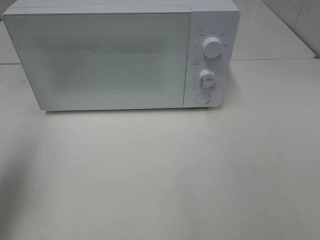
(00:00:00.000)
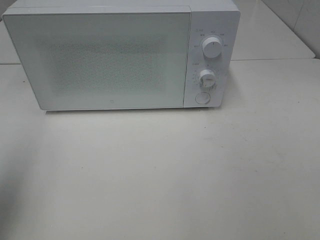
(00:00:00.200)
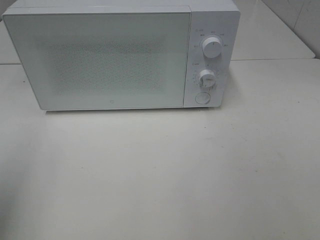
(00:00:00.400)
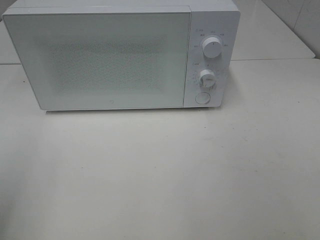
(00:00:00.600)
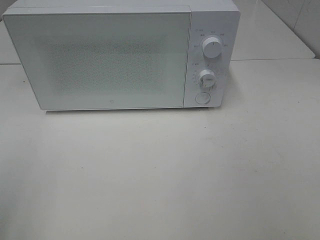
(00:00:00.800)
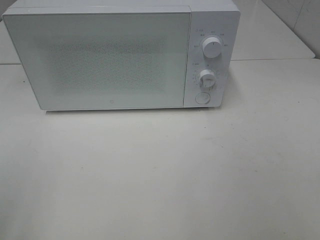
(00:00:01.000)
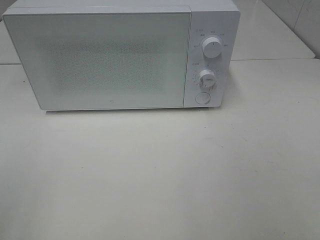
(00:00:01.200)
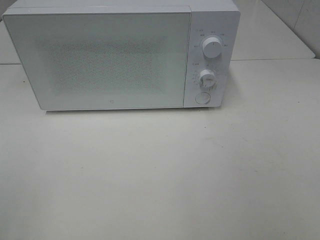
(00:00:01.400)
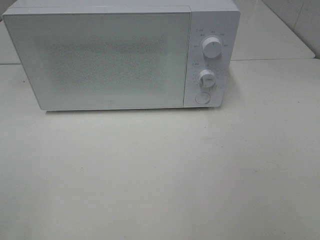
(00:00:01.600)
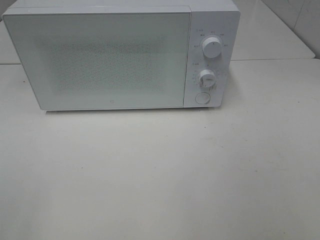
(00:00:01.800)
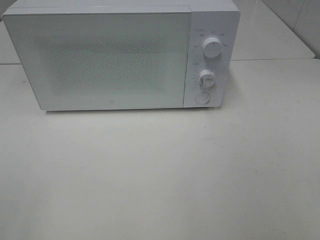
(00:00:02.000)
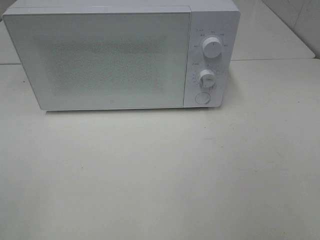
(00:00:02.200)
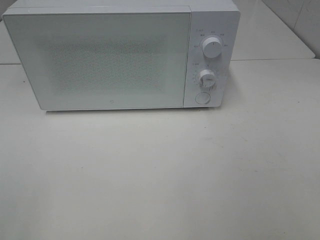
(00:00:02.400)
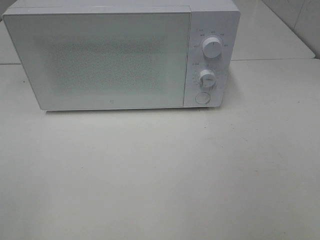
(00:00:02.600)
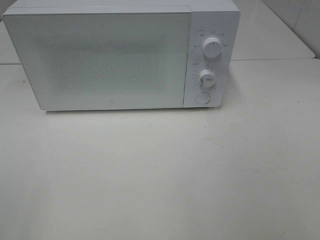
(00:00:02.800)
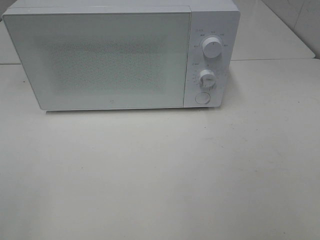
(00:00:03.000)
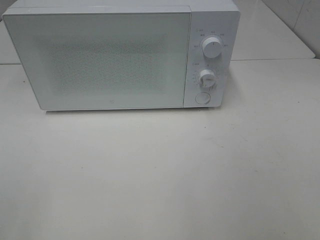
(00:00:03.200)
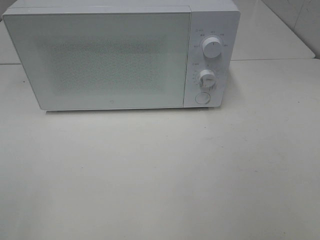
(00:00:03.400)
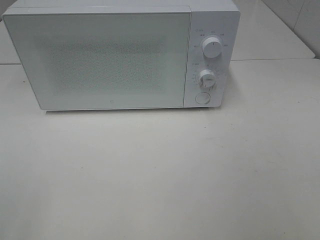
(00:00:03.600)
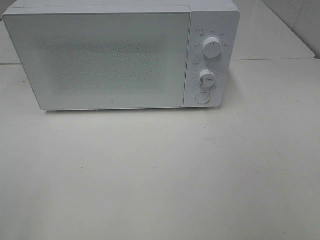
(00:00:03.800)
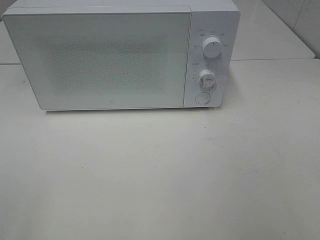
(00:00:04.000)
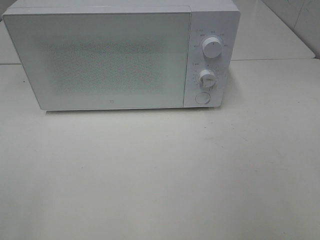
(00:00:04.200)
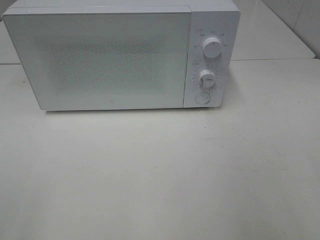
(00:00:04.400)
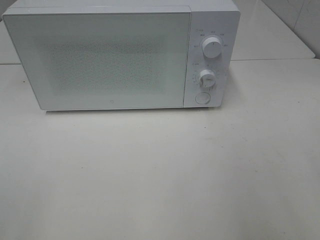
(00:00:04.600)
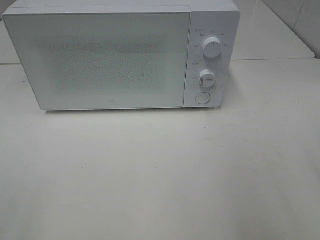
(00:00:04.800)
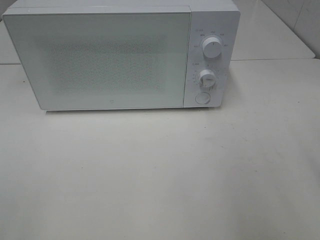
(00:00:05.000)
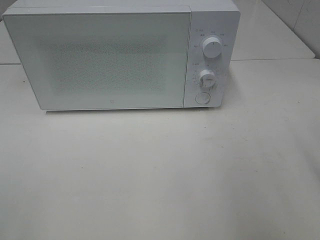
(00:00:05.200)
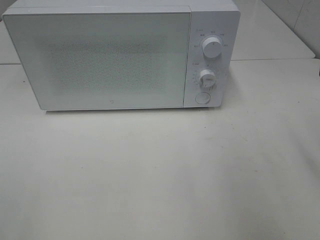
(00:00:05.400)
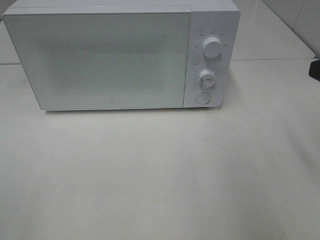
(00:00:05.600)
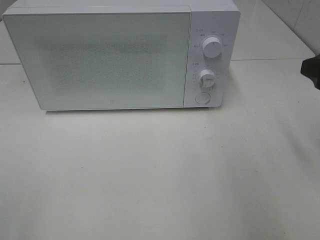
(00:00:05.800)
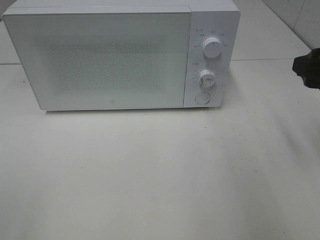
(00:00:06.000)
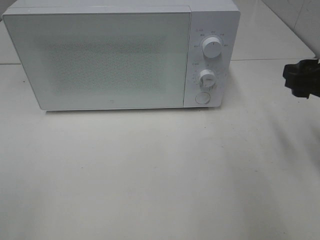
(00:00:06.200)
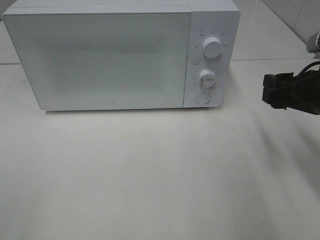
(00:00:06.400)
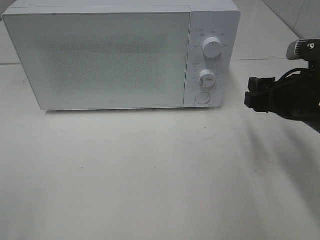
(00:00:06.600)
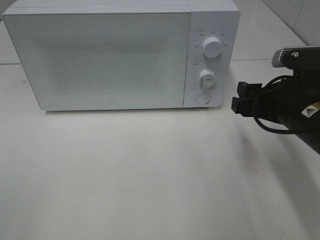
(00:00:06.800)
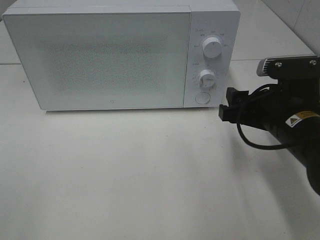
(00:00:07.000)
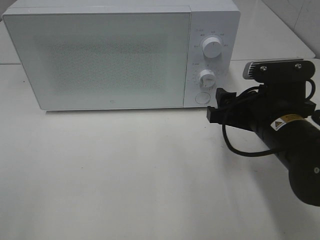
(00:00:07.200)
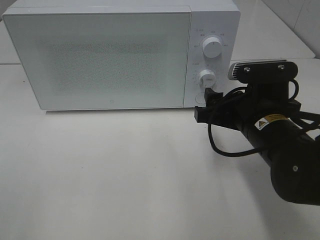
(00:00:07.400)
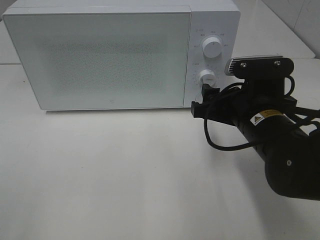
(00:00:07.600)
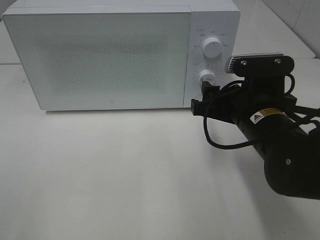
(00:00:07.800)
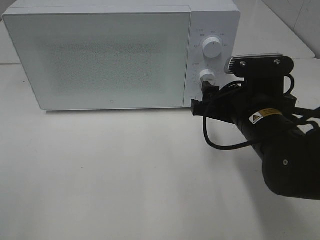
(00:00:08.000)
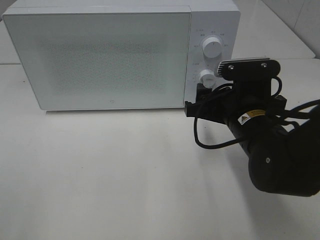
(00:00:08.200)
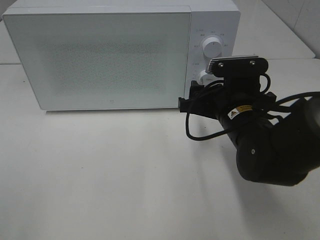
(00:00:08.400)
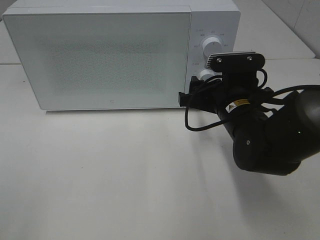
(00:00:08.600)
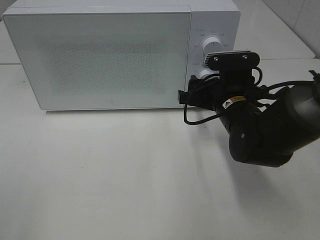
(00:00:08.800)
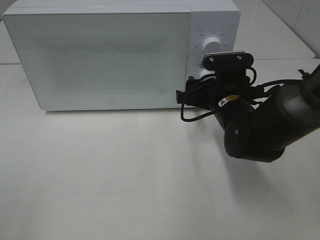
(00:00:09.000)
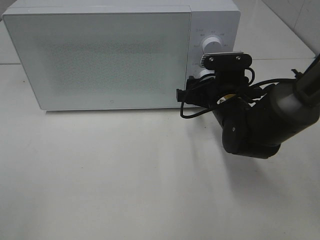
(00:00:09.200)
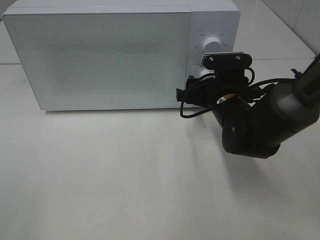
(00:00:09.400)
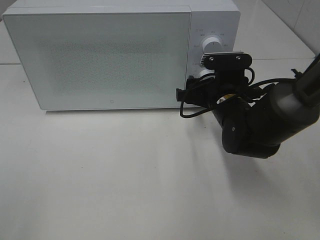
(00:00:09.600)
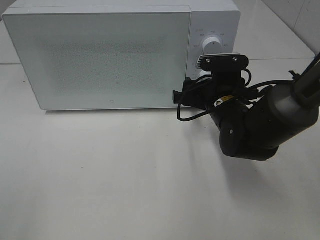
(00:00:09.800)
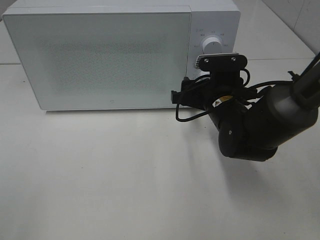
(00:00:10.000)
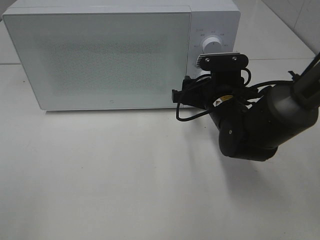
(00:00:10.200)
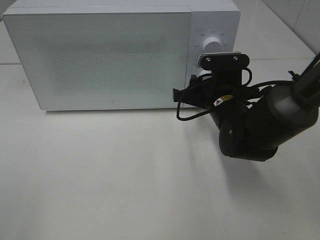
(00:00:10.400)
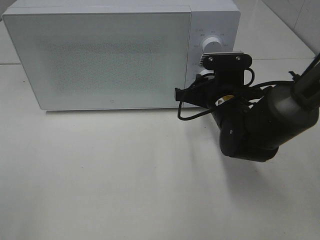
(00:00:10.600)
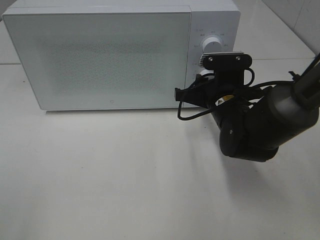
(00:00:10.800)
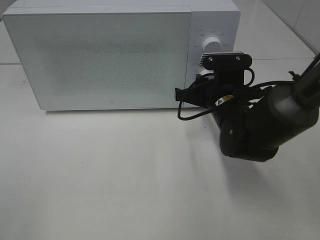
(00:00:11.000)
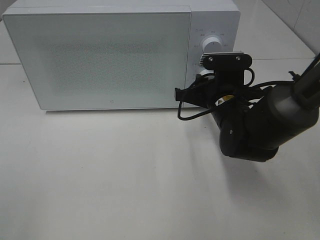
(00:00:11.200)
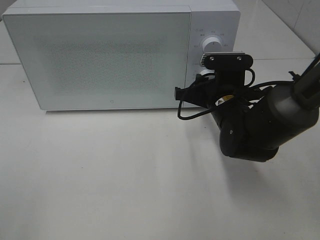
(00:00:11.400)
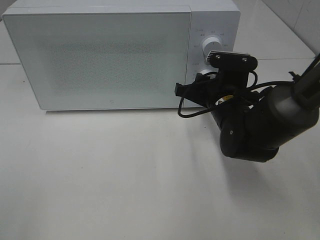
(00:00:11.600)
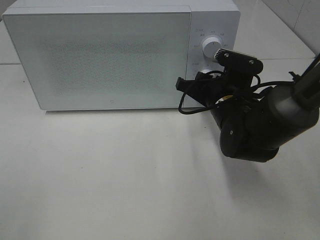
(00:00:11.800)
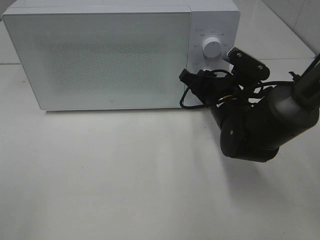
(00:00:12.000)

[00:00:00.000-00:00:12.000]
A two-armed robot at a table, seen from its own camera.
Task of the whole recording: Heat Sandwich.
00:00:00.000 to 00:00:01.600: The left gripper travels backward by approximately 20 cm.
00:00:01.600 to 00:00:03.000: Neither gripper changes place.
00:00:04.400 to 00:00:06.000: The right gripper moves forward, roughly 15 cm.
00:00:06.000 to 00:00:07.600: The right gripper travels to the left and downward by about 15 cm.
00:00:07.600 to 00:00:09.000: The right gripper heads forward, covering roughly 10 cm.
00:00:09.000 to 00:00:10.400: The two grippers keep their place.

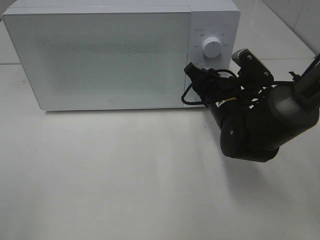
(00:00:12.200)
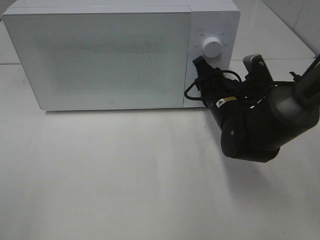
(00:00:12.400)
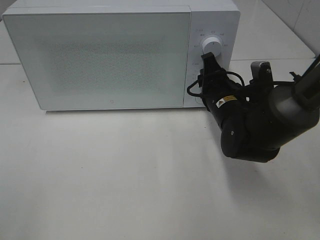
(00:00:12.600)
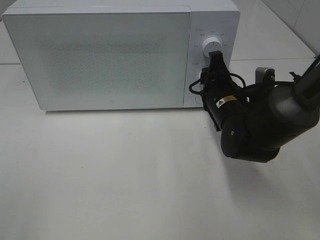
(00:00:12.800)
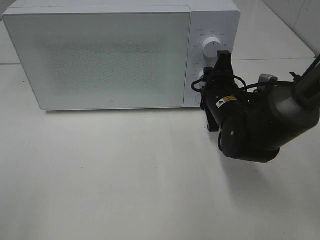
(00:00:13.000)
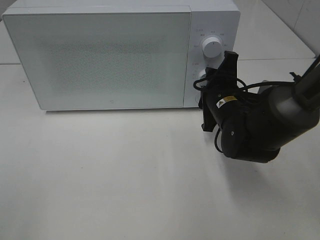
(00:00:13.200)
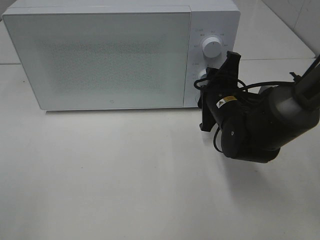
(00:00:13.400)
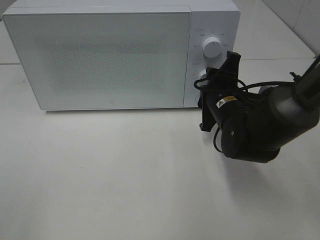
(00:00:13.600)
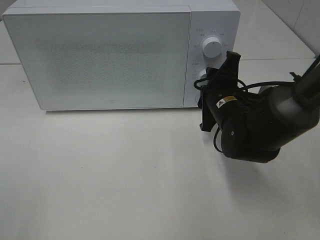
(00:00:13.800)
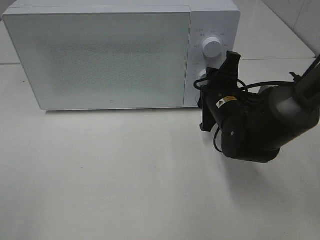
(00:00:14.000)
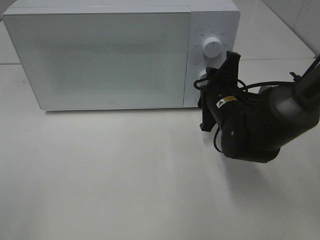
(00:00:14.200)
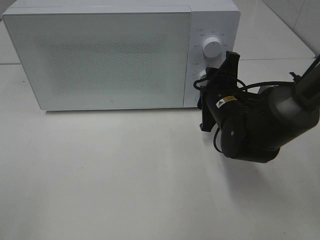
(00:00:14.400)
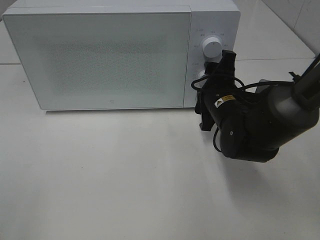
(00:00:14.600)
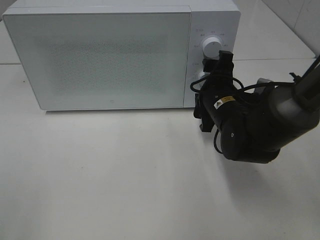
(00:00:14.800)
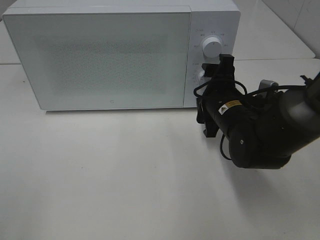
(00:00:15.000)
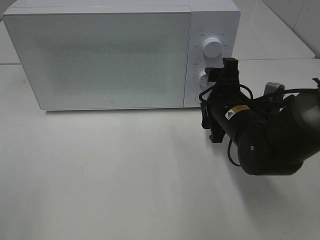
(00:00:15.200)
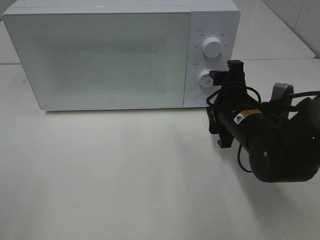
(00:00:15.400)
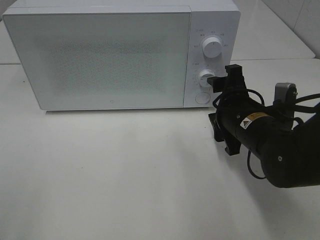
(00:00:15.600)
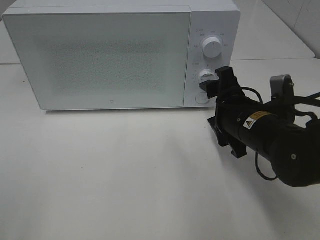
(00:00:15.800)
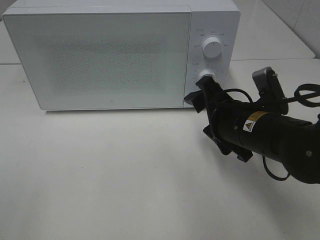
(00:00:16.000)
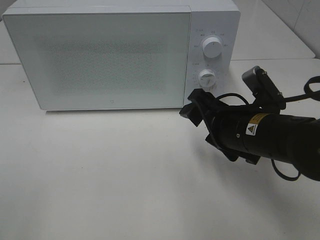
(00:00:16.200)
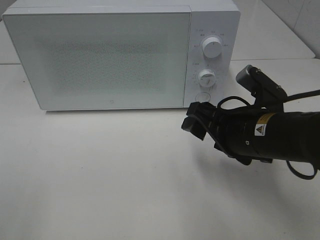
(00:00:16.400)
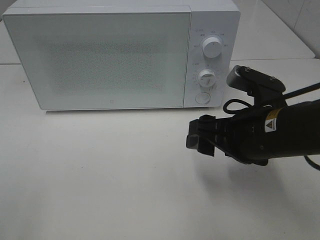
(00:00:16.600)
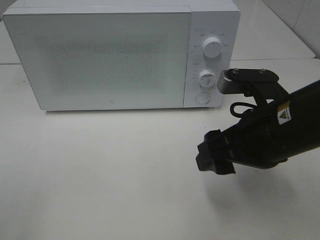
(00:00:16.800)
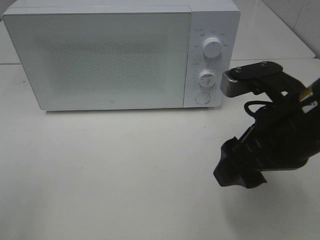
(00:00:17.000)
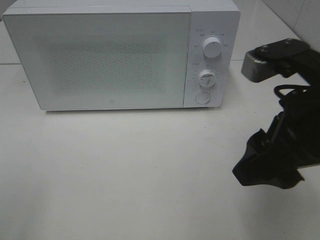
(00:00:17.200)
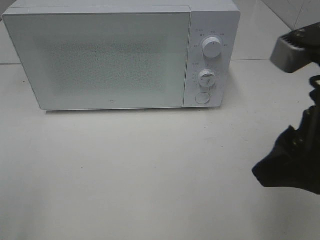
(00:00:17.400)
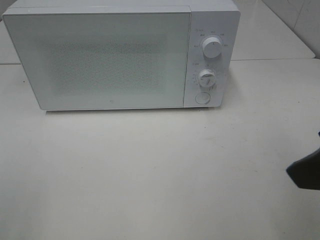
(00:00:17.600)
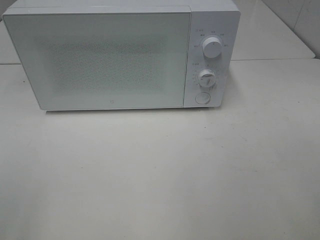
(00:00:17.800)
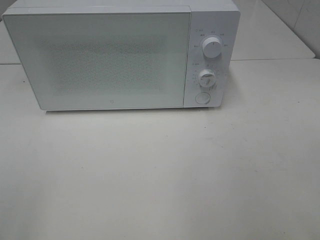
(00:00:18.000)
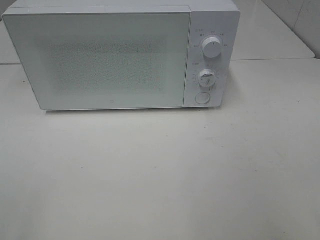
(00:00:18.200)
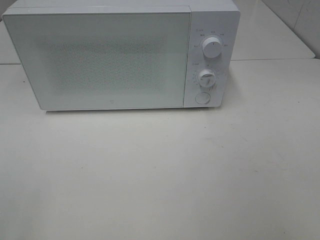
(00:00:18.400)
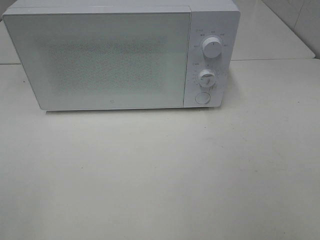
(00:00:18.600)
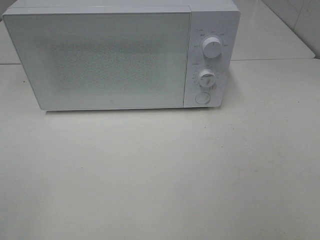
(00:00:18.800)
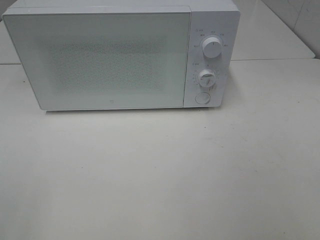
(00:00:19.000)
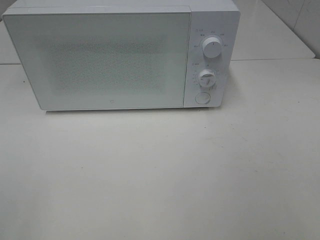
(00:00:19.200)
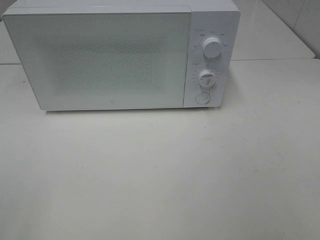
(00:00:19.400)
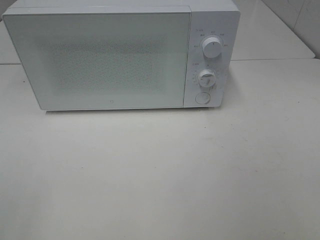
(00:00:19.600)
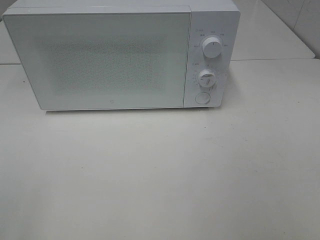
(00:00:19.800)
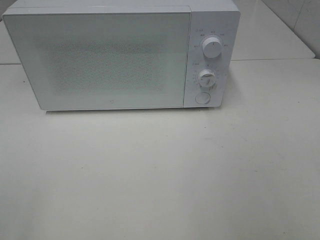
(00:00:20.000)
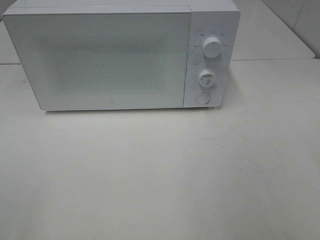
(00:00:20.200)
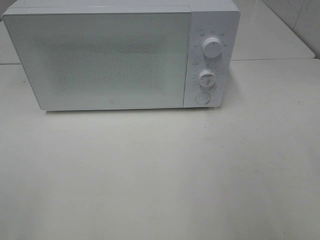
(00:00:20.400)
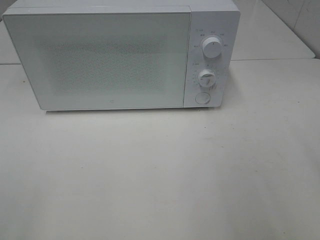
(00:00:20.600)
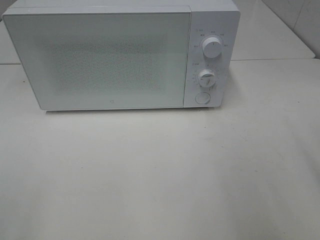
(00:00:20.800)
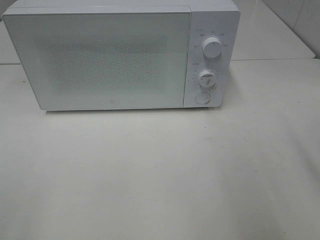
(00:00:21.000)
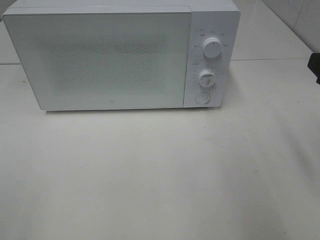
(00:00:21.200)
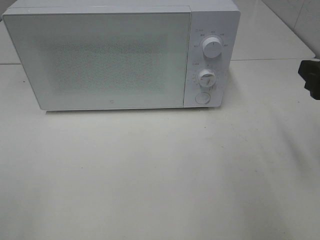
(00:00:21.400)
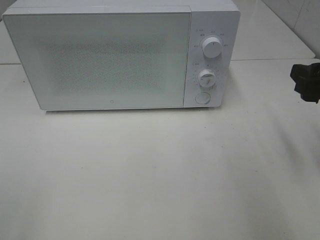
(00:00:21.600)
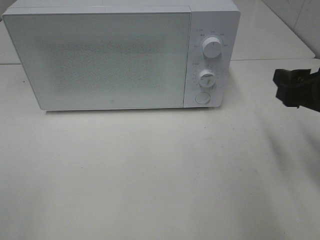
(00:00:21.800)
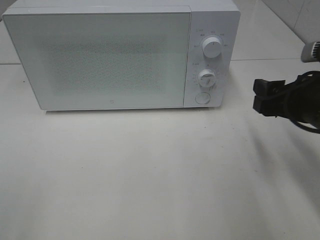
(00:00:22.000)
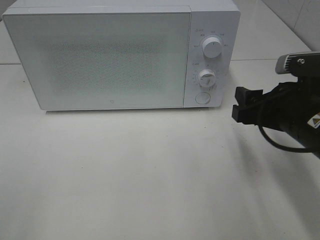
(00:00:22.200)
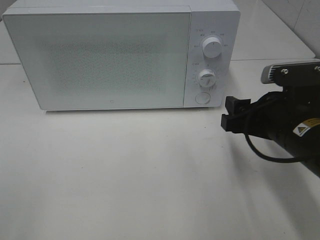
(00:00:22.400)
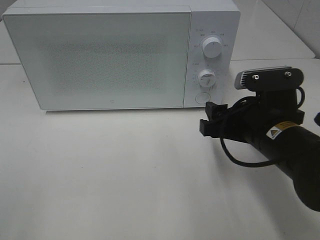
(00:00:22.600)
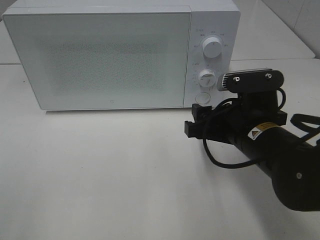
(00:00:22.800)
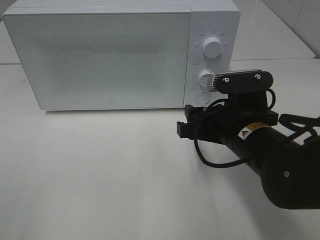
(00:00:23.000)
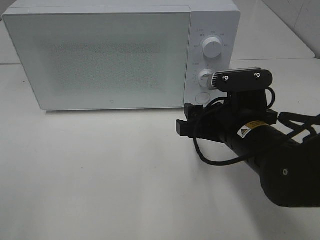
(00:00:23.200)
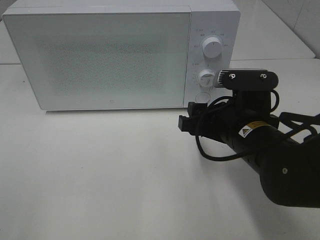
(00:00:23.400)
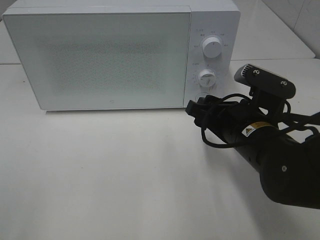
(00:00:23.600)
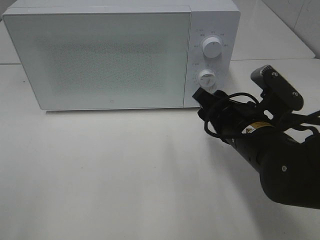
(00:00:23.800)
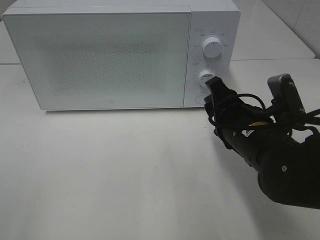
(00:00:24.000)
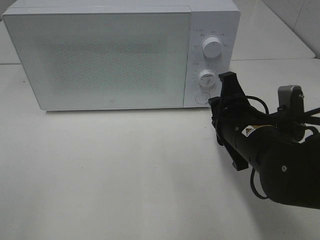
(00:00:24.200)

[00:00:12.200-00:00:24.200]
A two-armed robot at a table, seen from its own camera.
Task of the whole recording: Heat Sandwich.
Step, 00:00:12.200 to 00:00:15.400: Right hand: twist timer button.
00:00:13.800 to 00:00:15.200: The right gripper opens up.
00:00:15.200 to 00:00:16.600: The right gripper shifts roughly 10 cm backward and upward.
00:00:16.600 to 00:00:18.200: The right gripper moves backward, to the right and upward, roughly 25 cm.
00:00:21.200 to 00:00:22.600: The right gripper heads to the left and downward, covering approximately 15 cm.
00:00:22.600 to 00:00:24.200: The right gripper closes its fingers.
